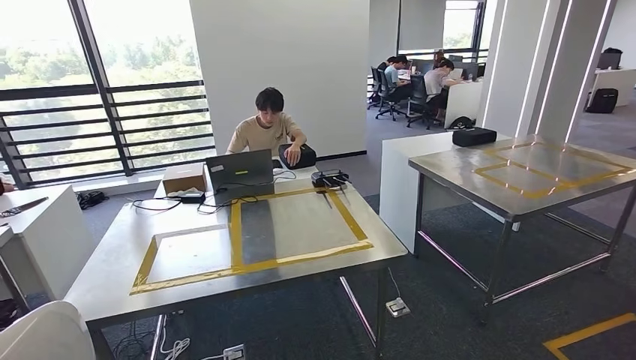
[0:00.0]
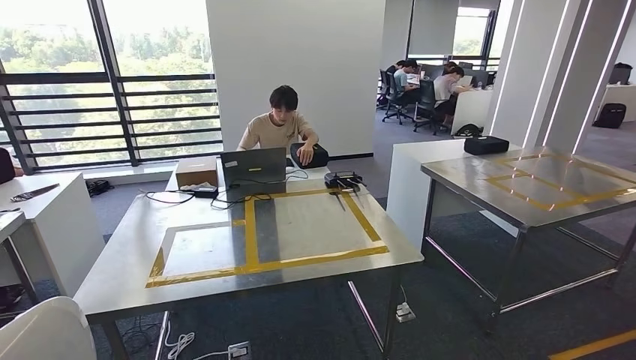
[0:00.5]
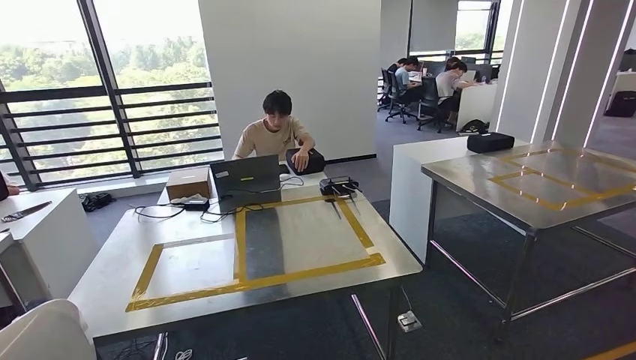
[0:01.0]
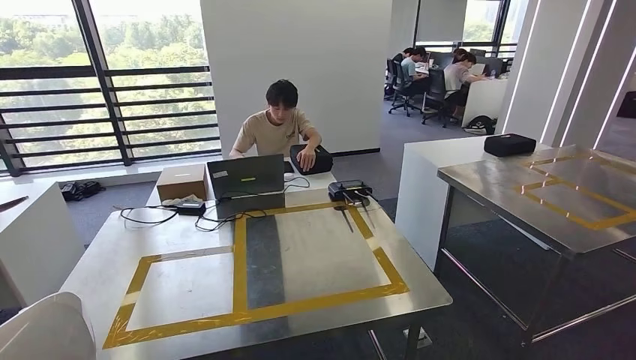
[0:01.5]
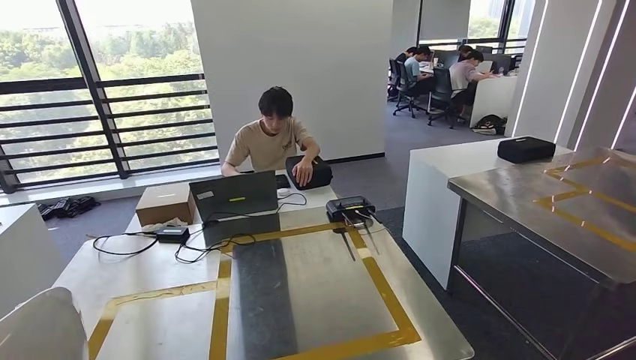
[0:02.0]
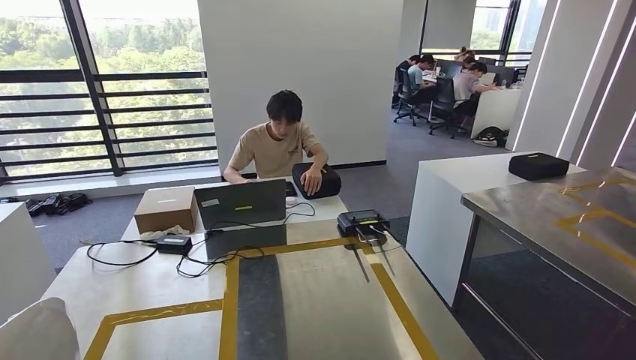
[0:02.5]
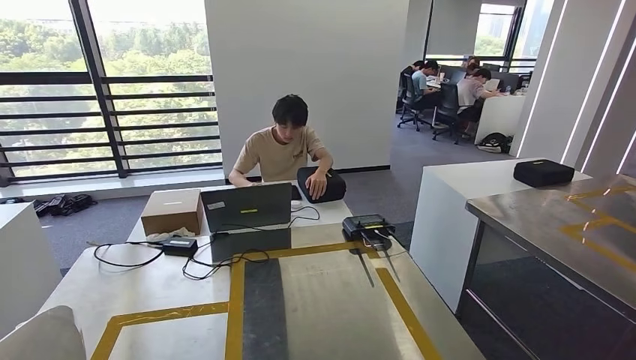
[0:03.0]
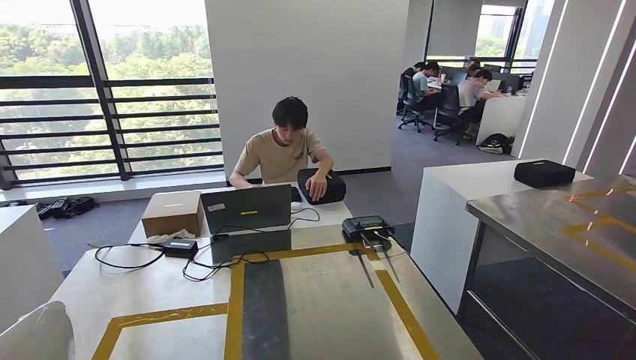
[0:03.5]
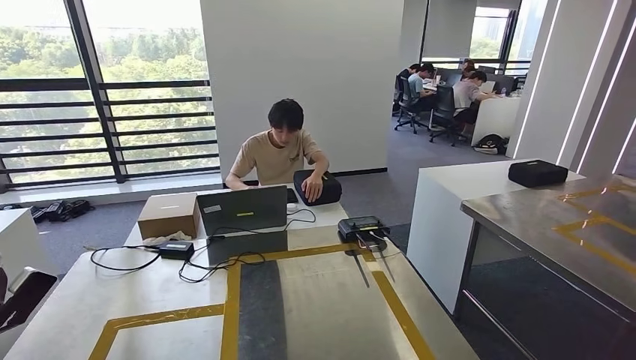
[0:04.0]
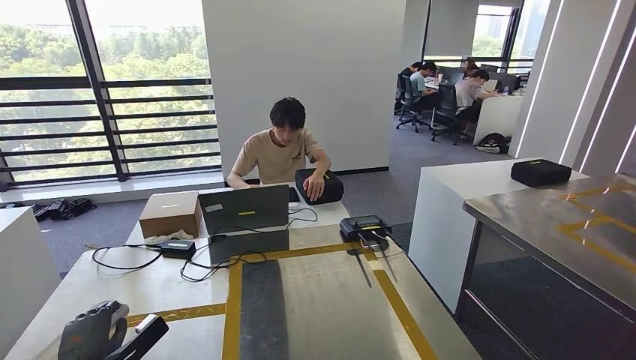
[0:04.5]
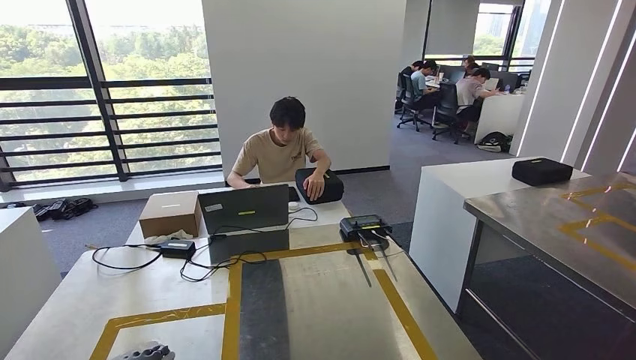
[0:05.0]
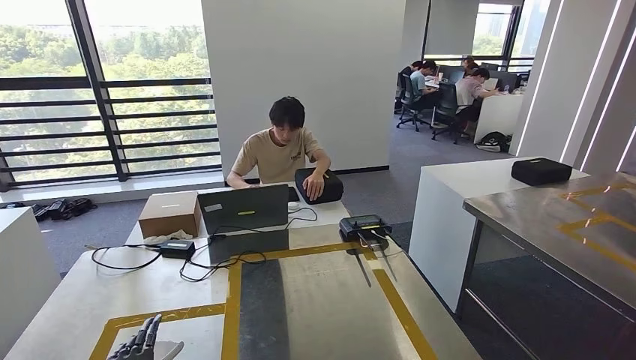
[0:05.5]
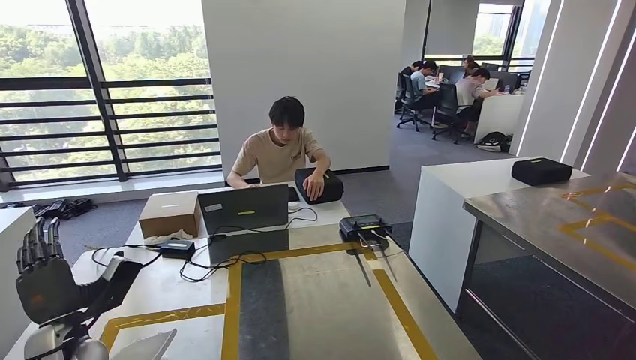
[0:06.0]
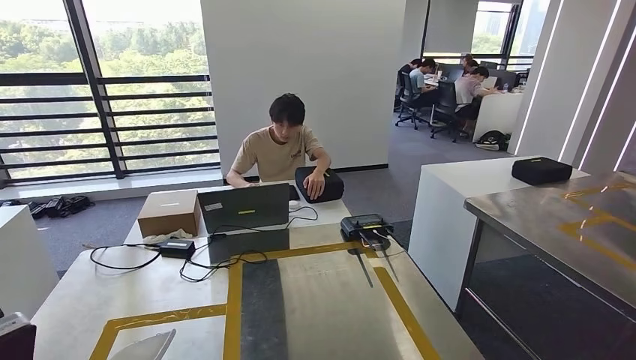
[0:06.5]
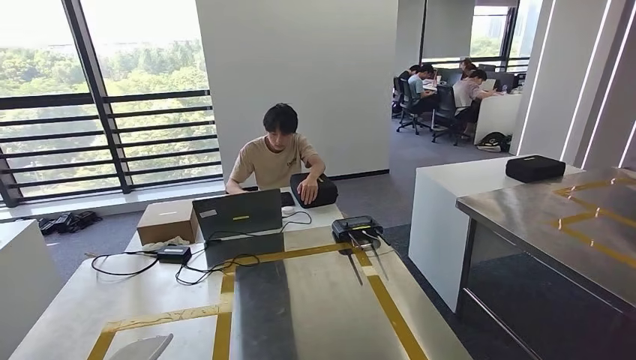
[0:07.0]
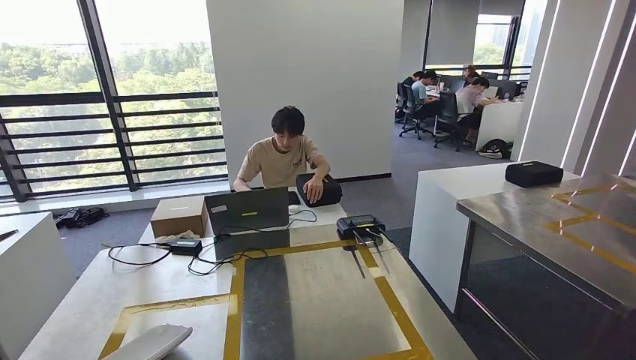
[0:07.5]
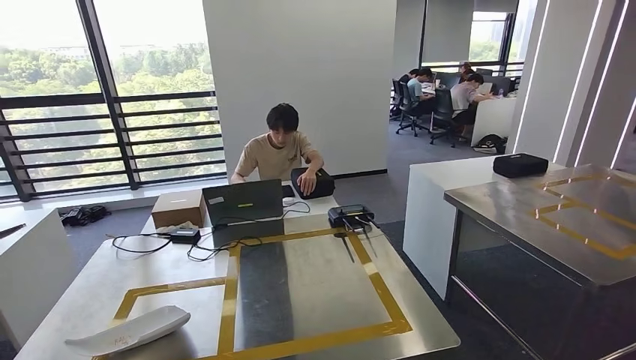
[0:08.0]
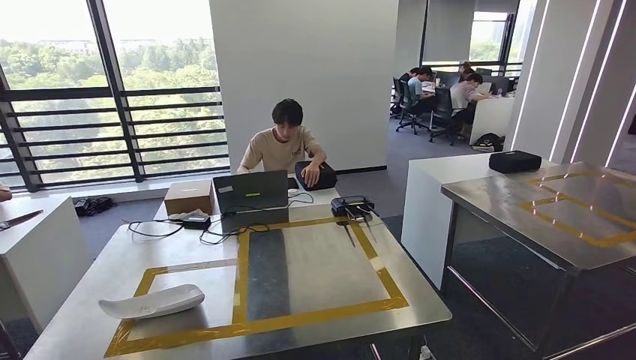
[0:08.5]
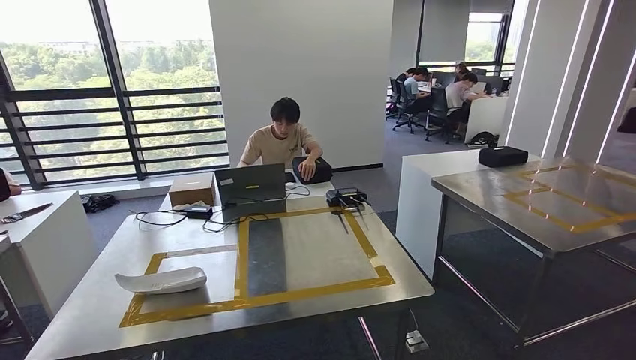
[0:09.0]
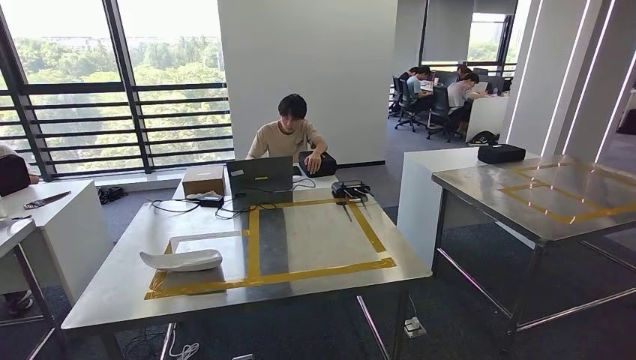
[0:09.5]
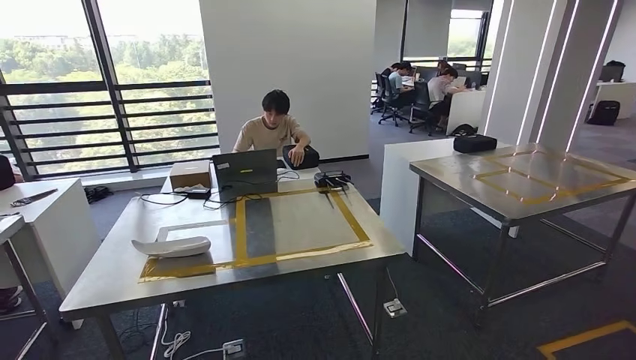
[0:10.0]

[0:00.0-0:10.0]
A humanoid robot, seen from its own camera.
Step, 0:00.5 to 0:06.0: Insert the small parts into the corresponding holes on the workbench.
Step, 0:07.0 to 0:10.0: Move to the initial position of the workbench.
